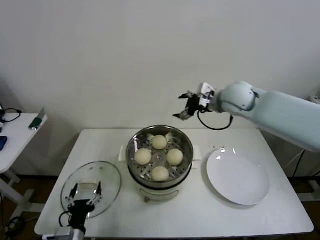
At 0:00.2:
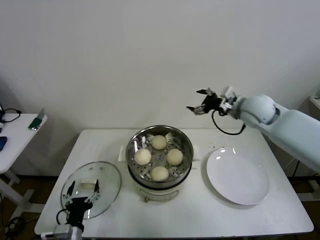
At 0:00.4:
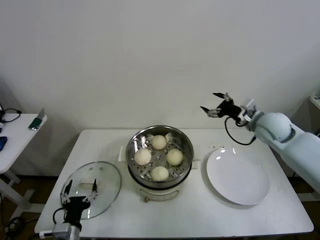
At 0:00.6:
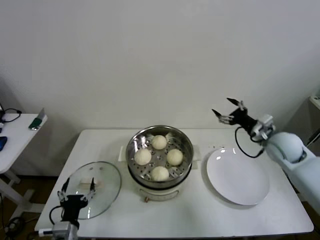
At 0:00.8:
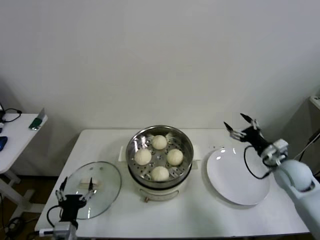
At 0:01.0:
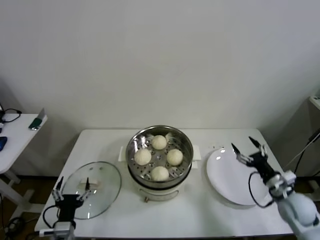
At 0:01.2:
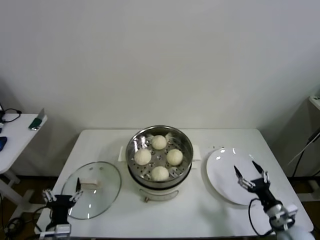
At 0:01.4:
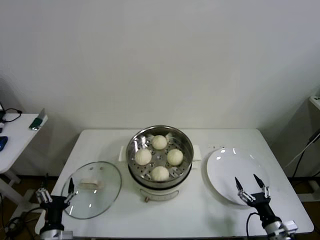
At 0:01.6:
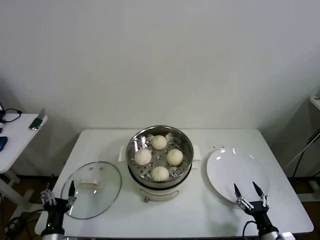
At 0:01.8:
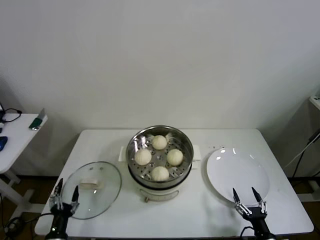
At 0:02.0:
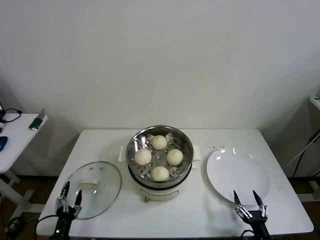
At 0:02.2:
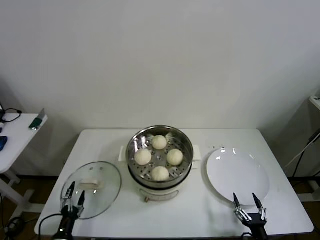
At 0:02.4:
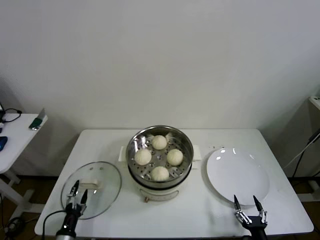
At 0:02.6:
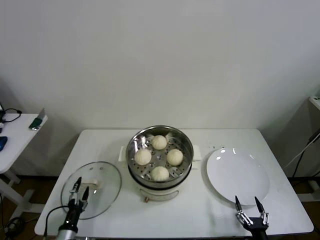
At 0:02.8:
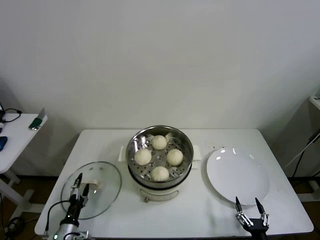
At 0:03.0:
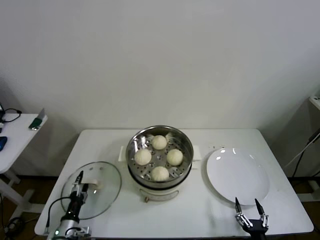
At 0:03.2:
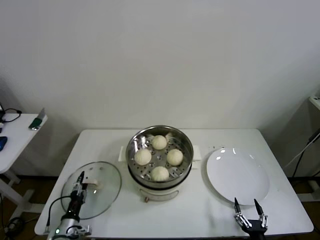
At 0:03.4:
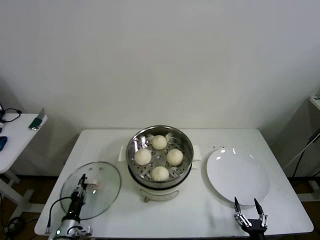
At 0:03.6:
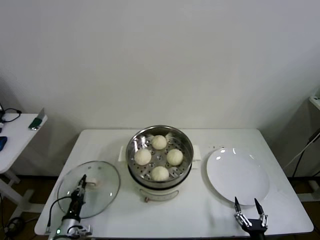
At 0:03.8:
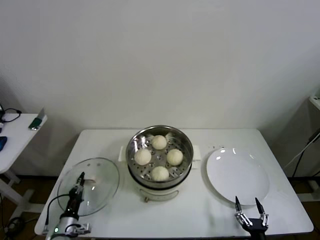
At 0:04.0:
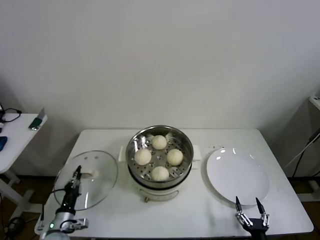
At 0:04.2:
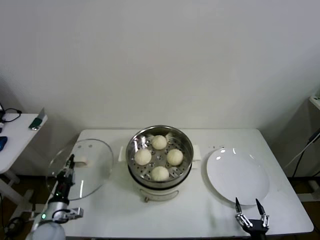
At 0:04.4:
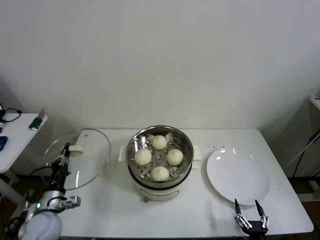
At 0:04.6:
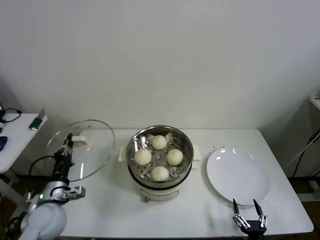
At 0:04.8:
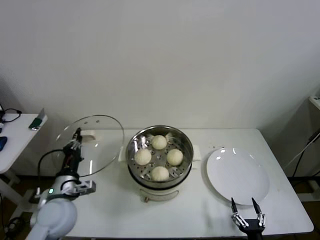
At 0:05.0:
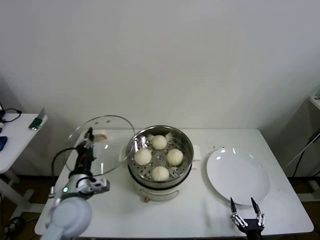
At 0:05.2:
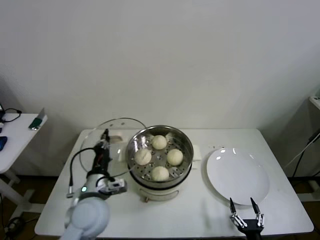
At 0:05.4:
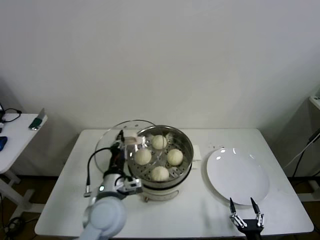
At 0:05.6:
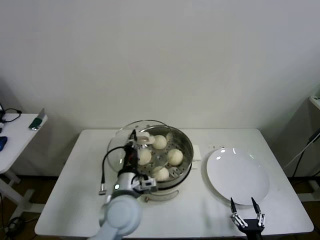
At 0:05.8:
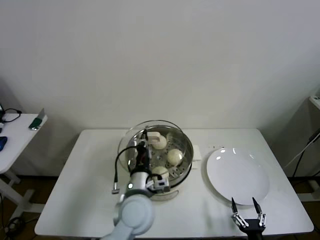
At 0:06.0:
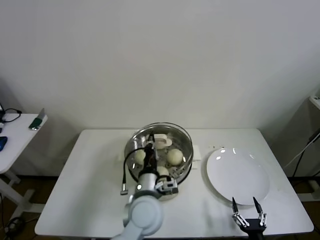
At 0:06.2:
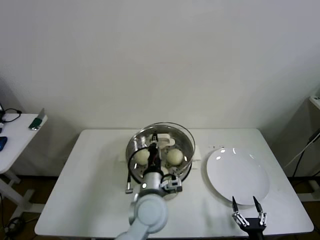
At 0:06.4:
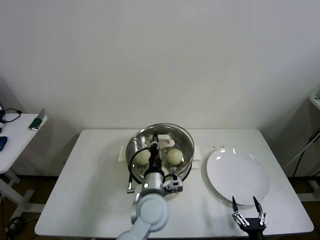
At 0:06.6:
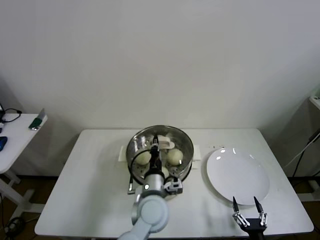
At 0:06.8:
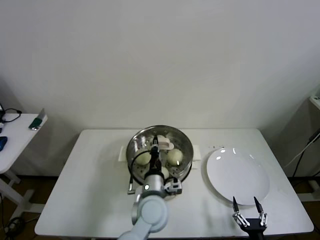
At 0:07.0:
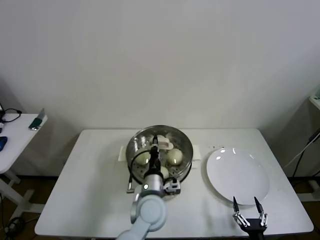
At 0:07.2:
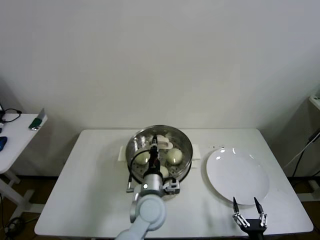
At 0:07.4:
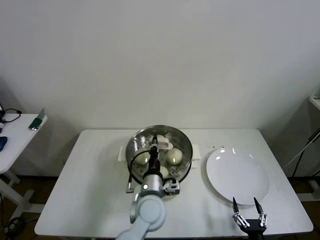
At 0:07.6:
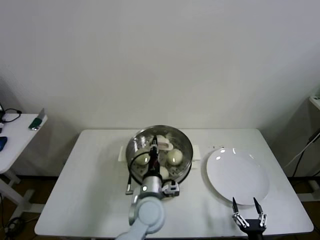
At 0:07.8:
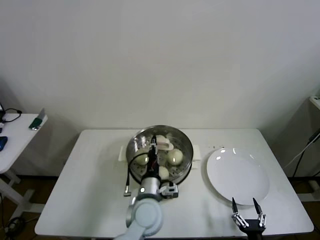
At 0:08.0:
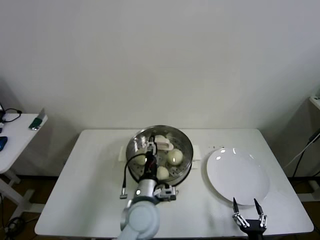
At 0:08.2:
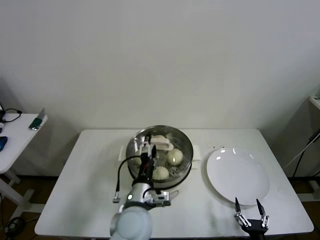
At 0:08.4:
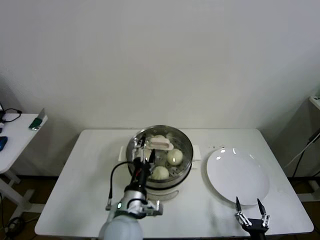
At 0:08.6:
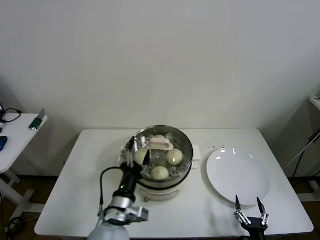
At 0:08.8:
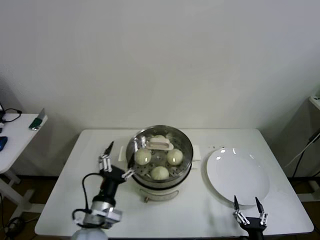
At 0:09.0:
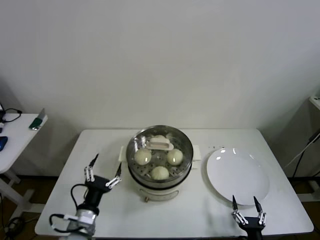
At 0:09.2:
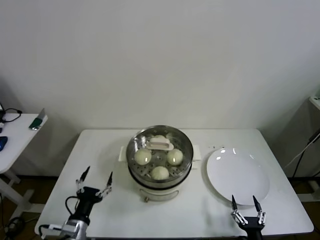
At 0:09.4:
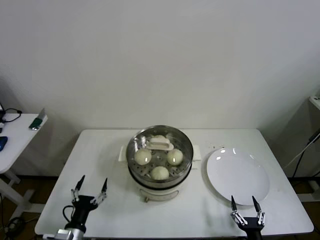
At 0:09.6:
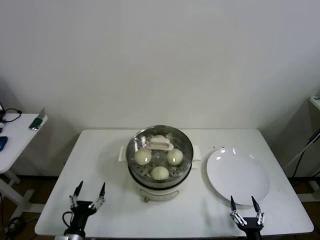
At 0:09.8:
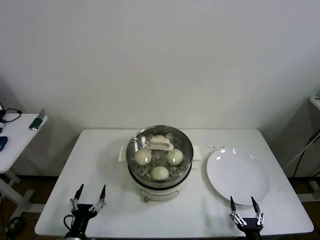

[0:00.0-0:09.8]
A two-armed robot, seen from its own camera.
Step, 0:00.0 to 0:03.4: Grasp the pot lid with left gripper.
Step, 0:03.8 to 0:07.6: Place the pot lid on the steamer with left gripper.
0:00.0 to 0:01.4: The right gripper shifts some 50 cm downward, backward and to the right.
0:01.4 to 0:02.8: The right gripper travels backward, to the left and downward by approximately 10 cm. The left gripper goes roughly 10 cm downward.
0:02.8 to 0:04.2: The left gripper goes approximately 10 cm upward, and closes its fingers.
0:04.2 to 0:05.6: The left gripper travels to the right and upward by about 30 cm.
0:05.6 to 0:07.0: The left gripper travels to the right by roughly 10 cm.
0:07.0 to 0:08.4: The left gripper moves to the left and backward, approximately 10 cm, and opens.
0:08.4 to 0:09.8: The left gripper is displaced to the left, downward and backward by approximately 30 cm.

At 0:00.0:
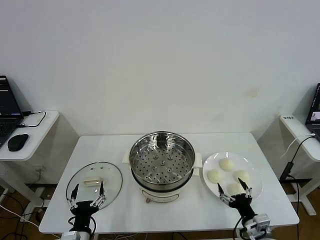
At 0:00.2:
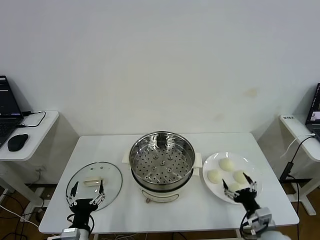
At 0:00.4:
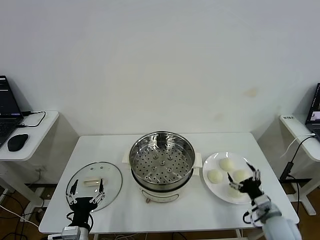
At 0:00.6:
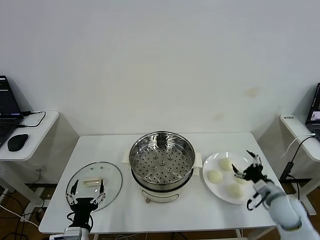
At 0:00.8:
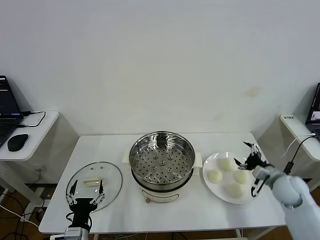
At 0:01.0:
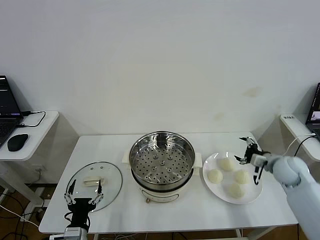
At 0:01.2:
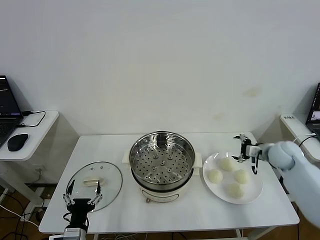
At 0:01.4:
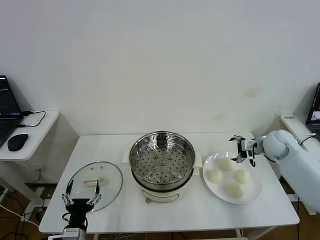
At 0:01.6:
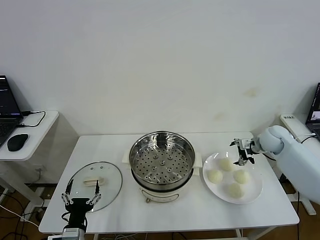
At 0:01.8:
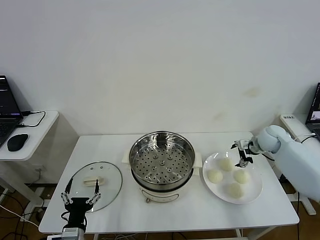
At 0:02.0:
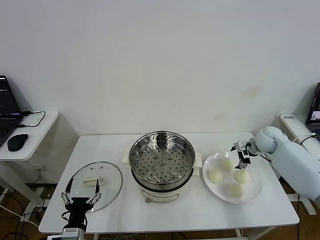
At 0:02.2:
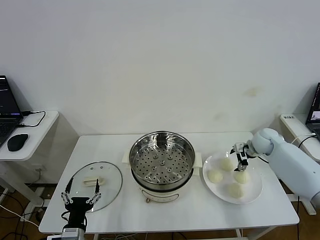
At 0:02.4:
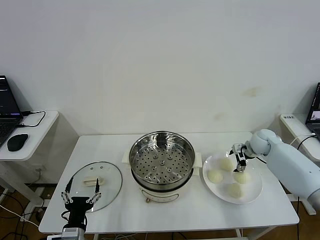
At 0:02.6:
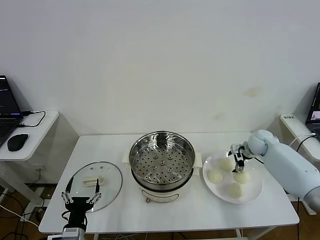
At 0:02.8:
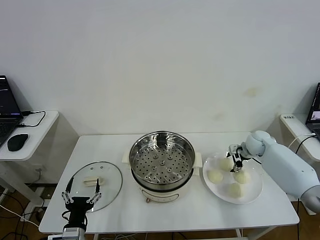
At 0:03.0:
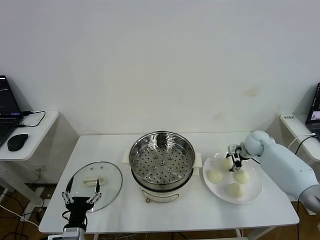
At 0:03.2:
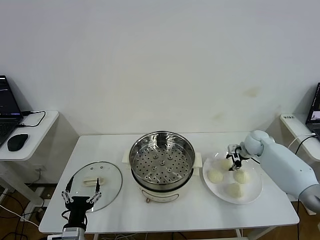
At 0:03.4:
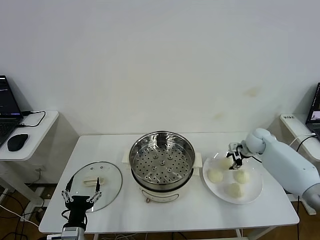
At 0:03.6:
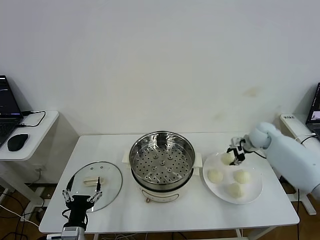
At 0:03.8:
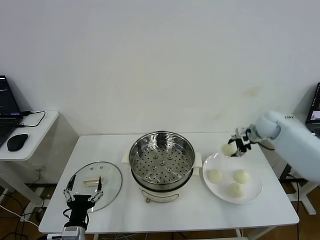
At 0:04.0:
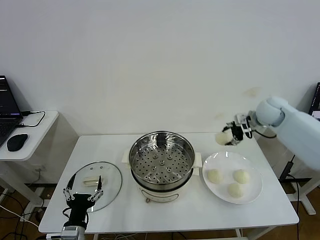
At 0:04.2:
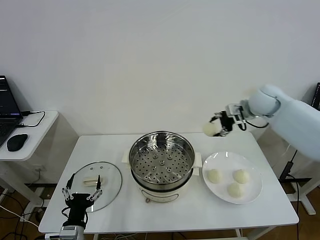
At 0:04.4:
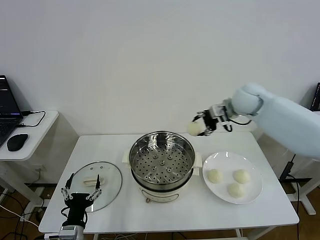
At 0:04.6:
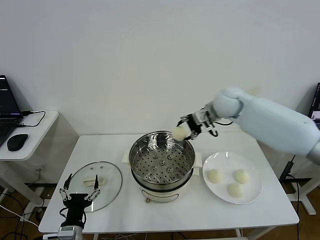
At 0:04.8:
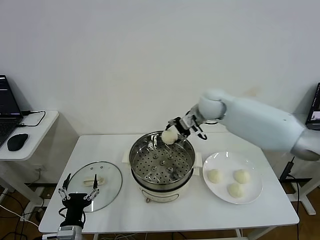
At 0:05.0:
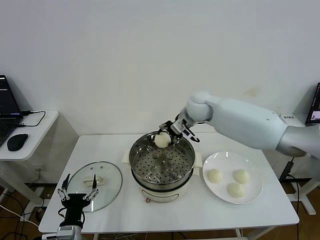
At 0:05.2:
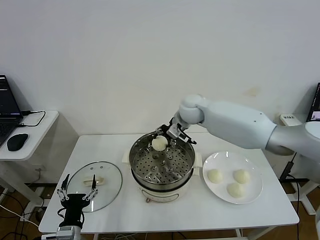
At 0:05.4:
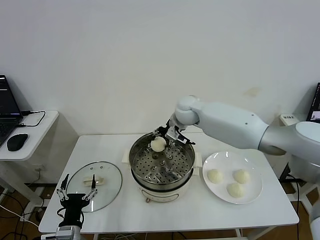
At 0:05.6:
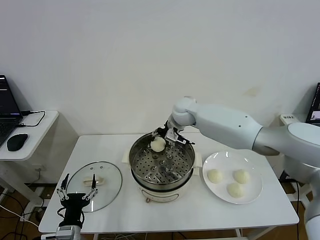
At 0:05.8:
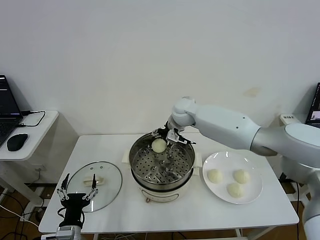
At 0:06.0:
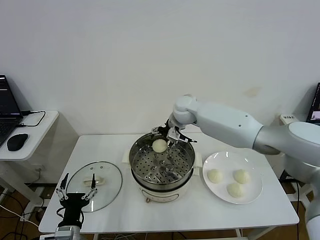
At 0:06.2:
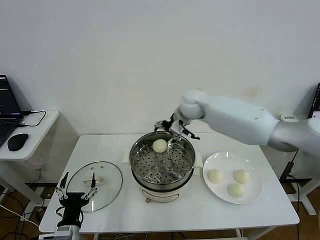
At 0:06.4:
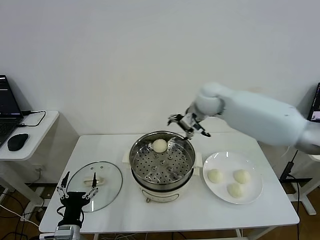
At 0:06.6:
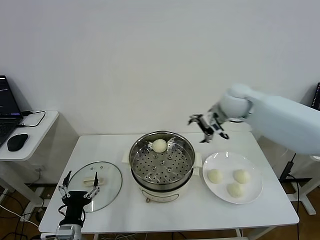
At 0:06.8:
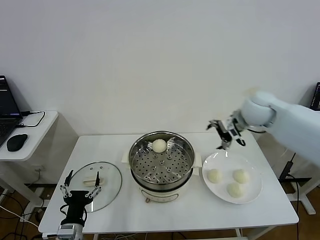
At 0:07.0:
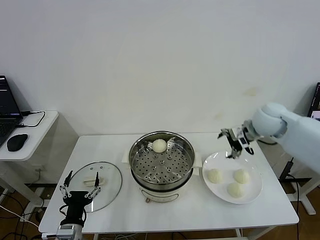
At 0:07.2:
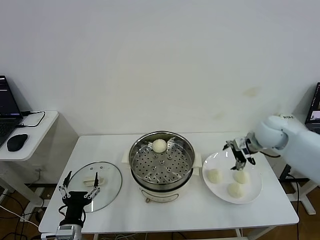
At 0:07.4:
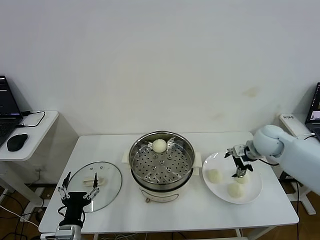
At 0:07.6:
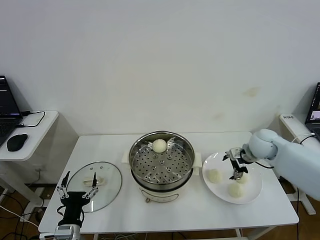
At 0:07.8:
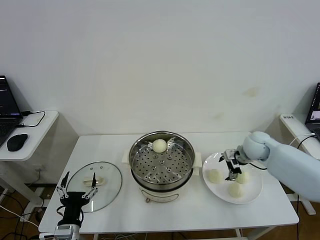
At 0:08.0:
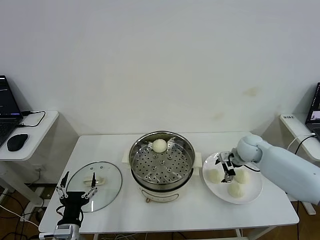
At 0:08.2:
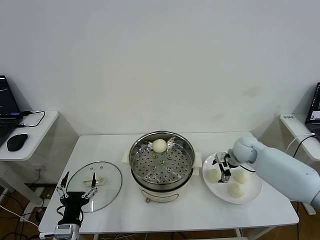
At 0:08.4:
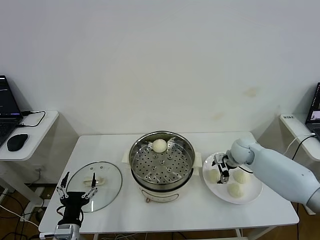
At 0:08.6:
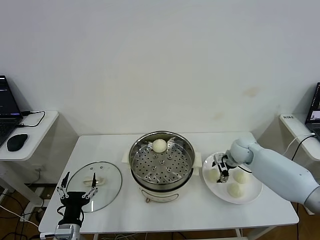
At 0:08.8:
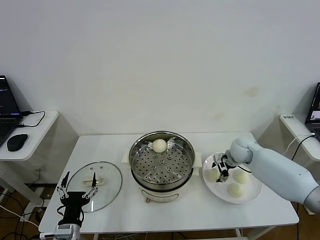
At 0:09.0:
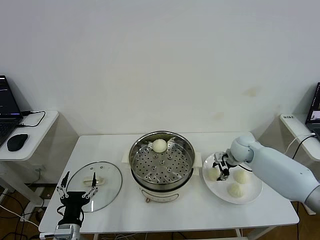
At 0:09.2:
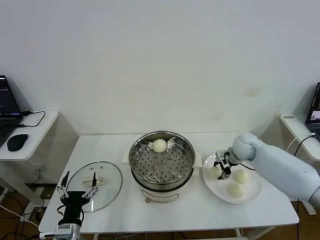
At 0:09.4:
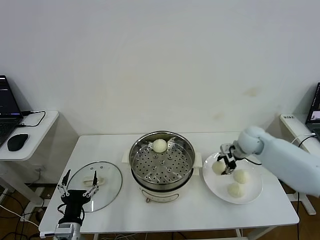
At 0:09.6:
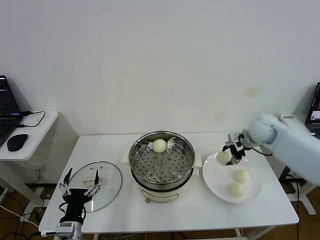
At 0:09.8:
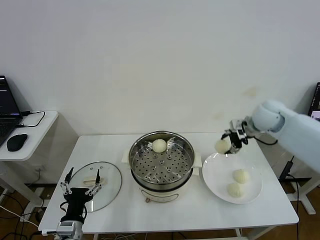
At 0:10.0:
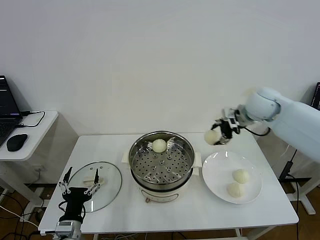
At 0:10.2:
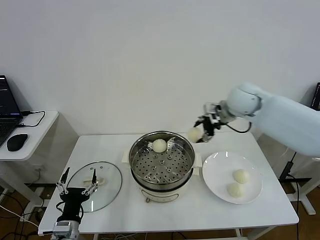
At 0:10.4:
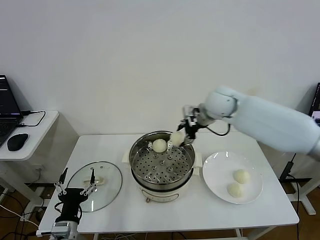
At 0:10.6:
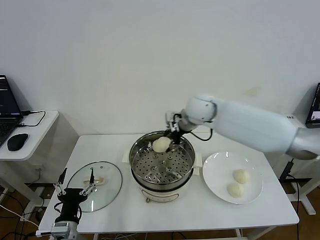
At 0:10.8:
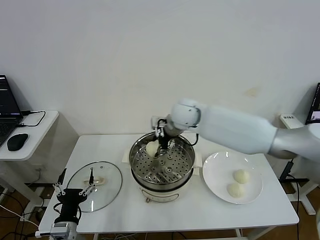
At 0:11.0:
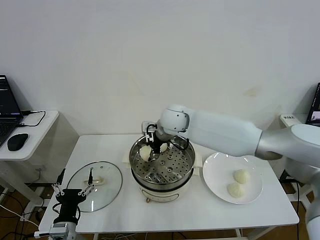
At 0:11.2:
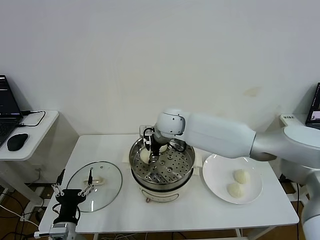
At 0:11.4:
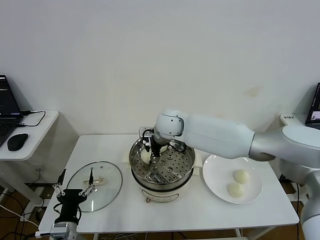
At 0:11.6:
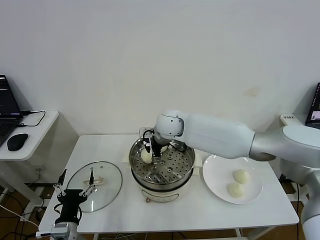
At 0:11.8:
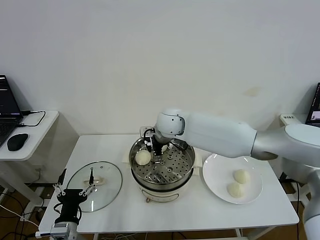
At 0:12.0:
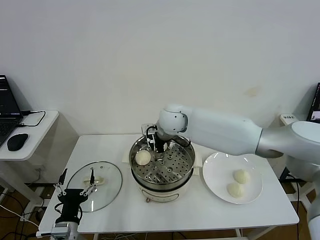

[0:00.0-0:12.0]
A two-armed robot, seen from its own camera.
Step, 0:00.0 to 0:03.2: Grasp the baozi in the plate with right gripper.
Step, 0:03.4 to 0:05.8: Place the baozi on the steamer with right gripper.
Step, 0:06.0 to 0:09.0: Grasp the baozi in the plate with right gripper.
Step, 0:09.2 to 0:11.6: Place the baozi on the steamer with right gripper.
0:01.6 to 0:03.0: The right gripper moves downward, approximately 5 cm, and closes its fingers.
0:03.0 to 0:04.4: The right gripper shifts some 25 cm upward and to the left.
0:04.4 to 0:06.0: The right gripper moves to the left, approximately 15 cm, and opens up.
0:06.0 to 0:07.6: The right gripper moves to the right, some 25 cm.
0:07.6 to 0:09.0: The right gripper goes some 5 cm downward, and closes.
0:09.0 to 0:10.4: The right gripper shifts roughly 25 cm upward and to the left.
0:10.4 to 0:12.0: The right gripper shifts roughly 10 cm to the left, and opens.
